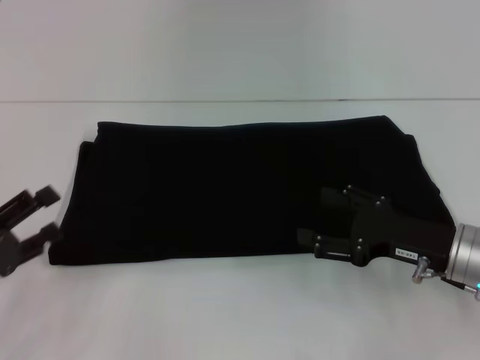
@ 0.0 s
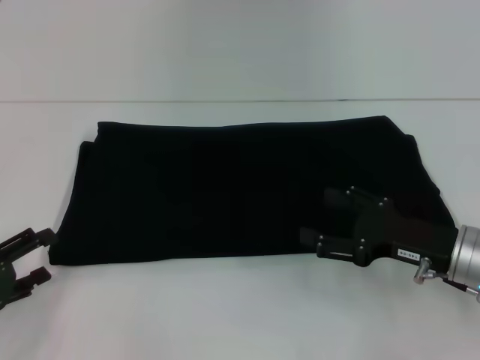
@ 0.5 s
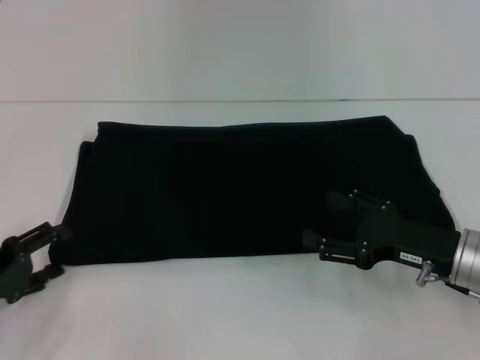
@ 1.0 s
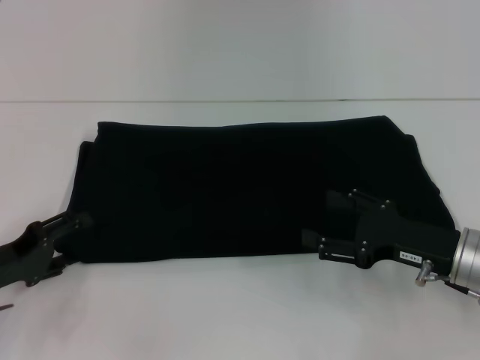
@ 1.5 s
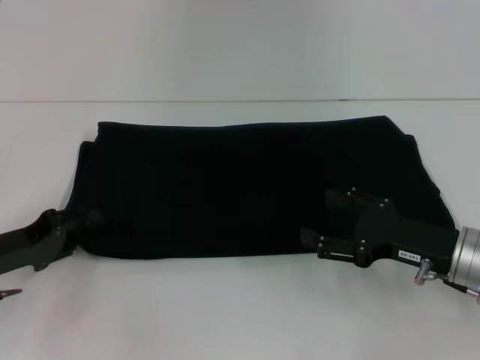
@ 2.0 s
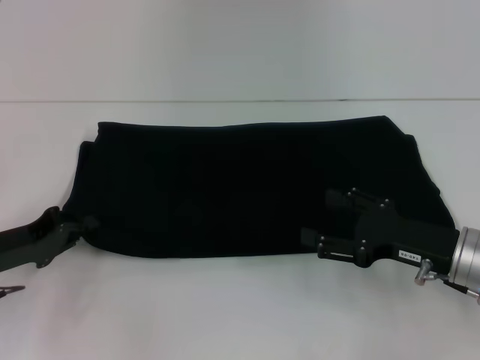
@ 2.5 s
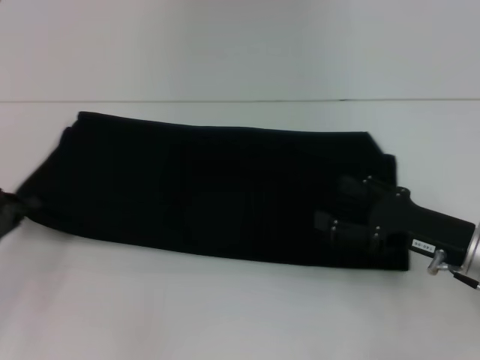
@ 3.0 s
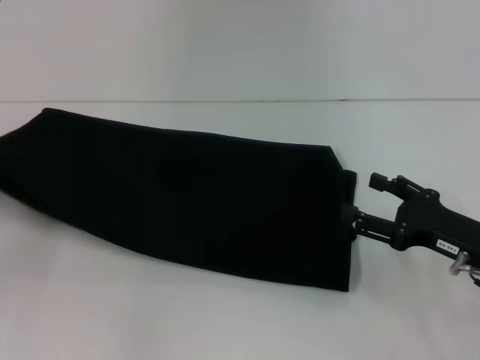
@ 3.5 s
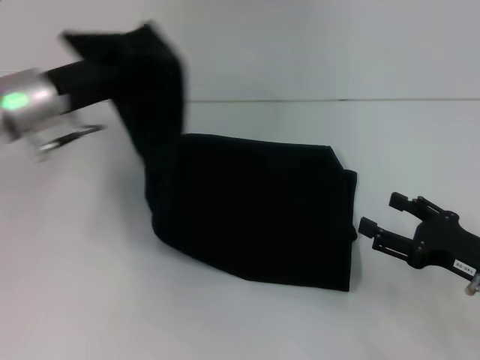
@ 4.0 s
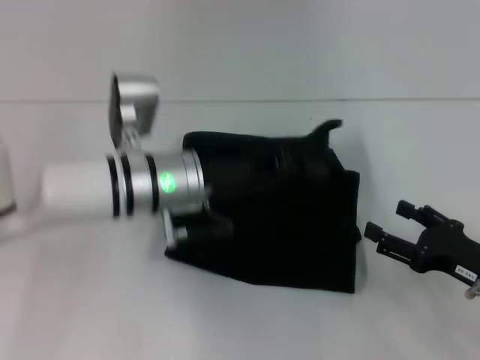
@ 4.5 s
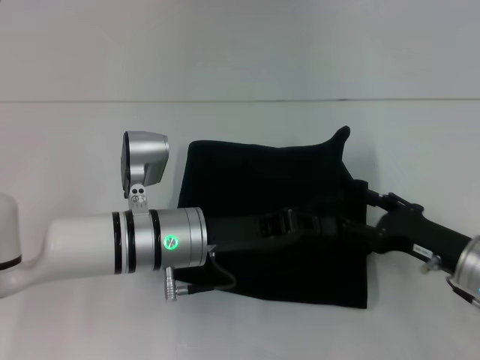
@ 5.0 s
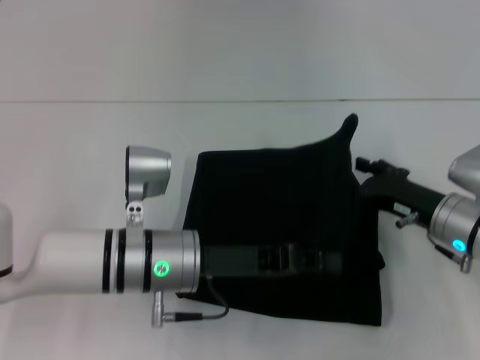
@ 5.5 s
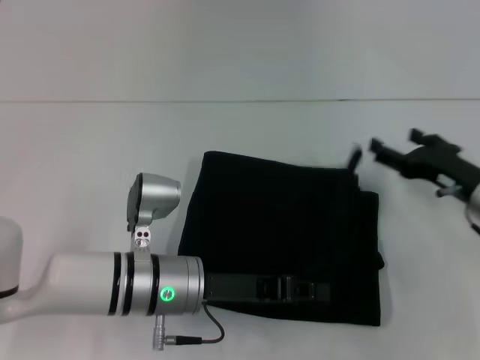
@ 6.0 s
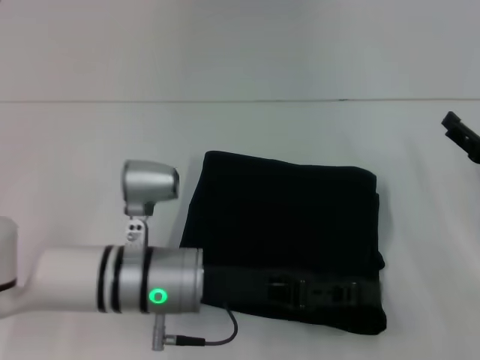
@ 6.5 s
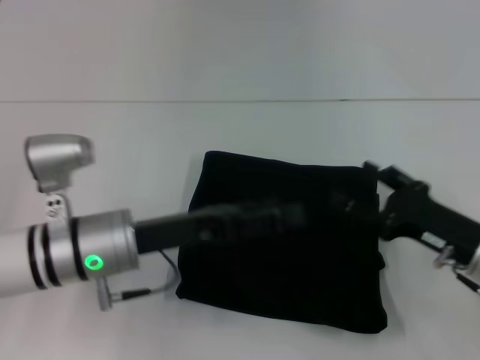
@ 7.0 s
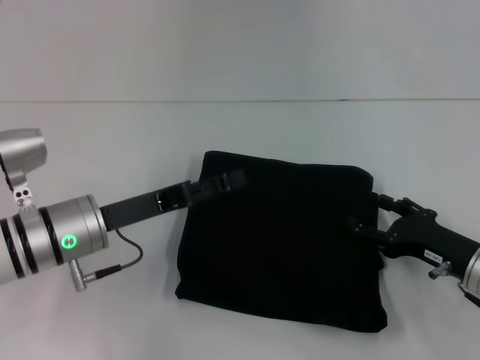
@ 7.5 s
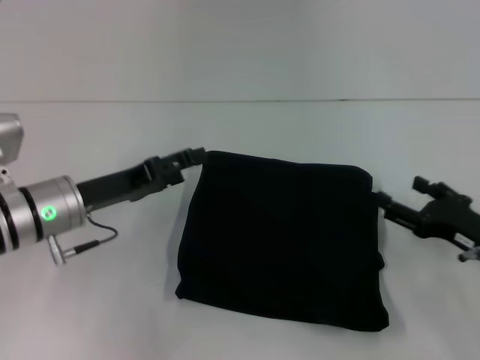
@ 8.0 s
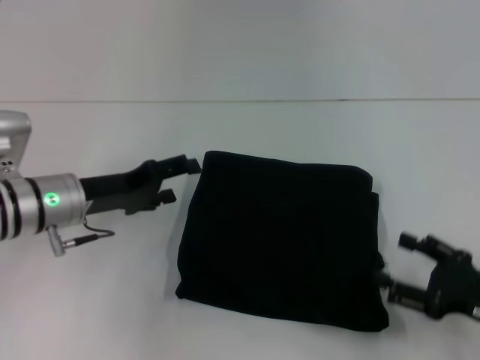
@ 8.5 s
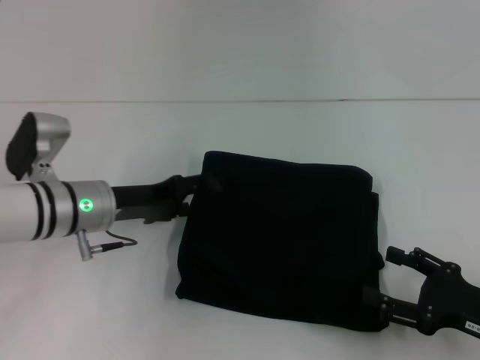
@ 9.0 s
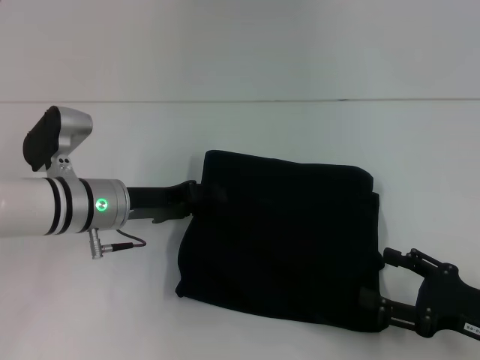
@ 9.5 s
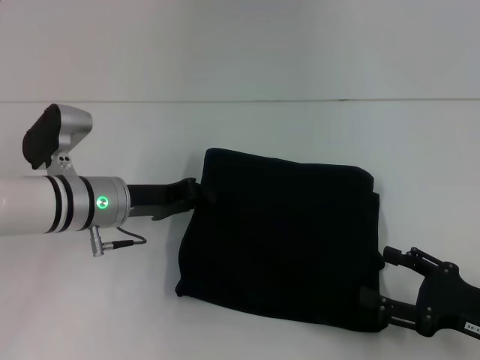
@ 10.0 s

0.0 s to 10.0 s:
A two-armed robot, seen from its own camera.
Step, 0.0 to 6.5 s: Fold the clothes with your left hand.
0.0 to 2.0 s: The left gripper heads forward, covering approximately 5 cm.
2.0 to 4.0 s: The right gripper ends up some 5 cm from where it was; the left gripper travels upward, forward and to the right by some 20 cm, and closes.
4.0 to 6.0 s: The left gripper heads to the right, downward and backward, covering roughly 20 cm; the right gripper goes approximately 10 cm forward.
6.0 to 8.0 s: The right gripper goes some 5 cm backward. Meanwhile the left gripper shifts approximately 10 cm to the left, and opens its fingers.
8.0 to 10.0 s: The left gripper shifts by approximately 5 cm, and closes up, while the right gripper goes roughly 5 cm backward.

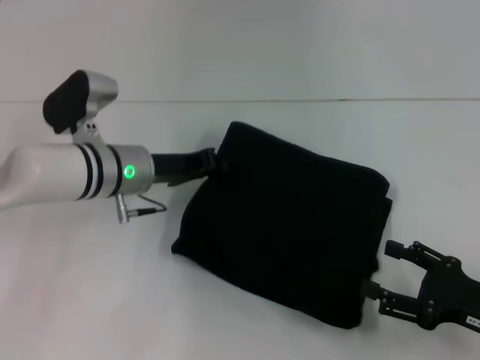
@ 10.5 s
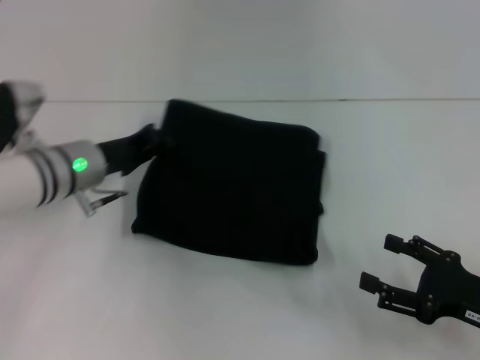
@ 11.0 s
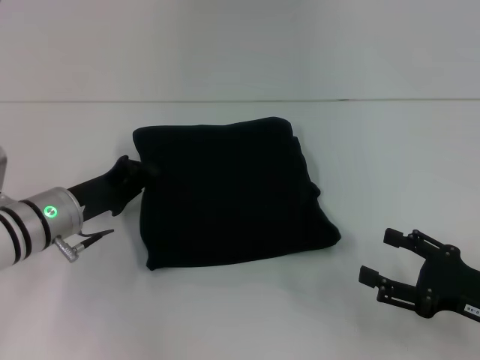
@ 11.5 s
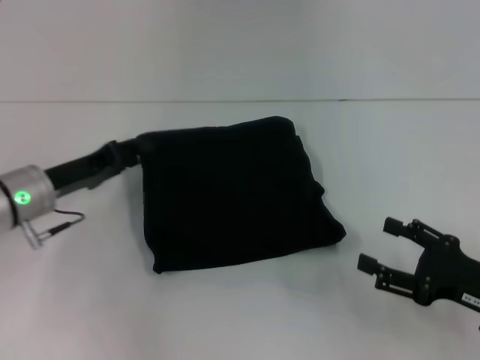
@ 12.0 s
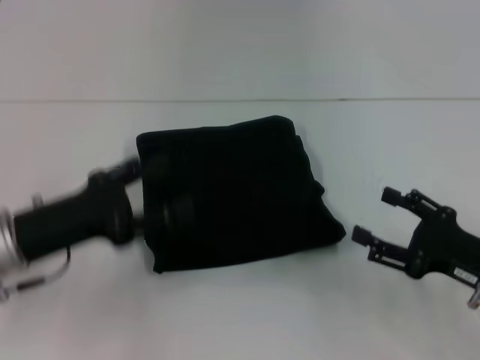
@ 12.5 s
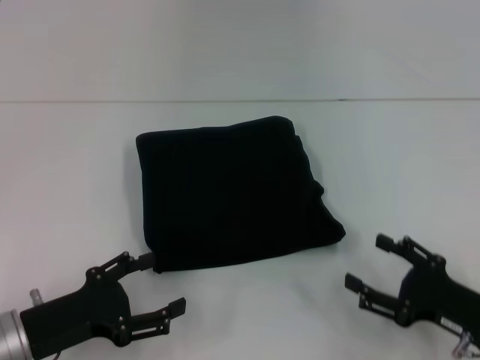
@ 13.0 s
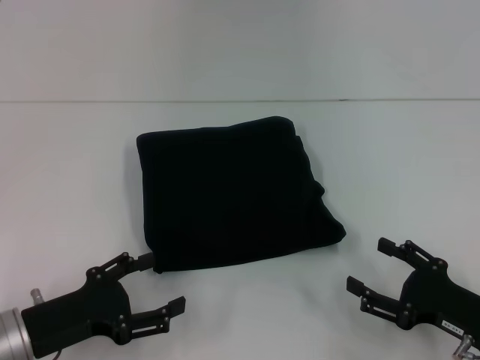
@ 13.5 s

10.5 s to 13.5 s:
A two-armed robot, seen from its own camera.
10.5 to 12.0 s: The left gripper shifts about 10 cm to the left.
12.0 to 13.5 s: The left gripper moves backward, about 15 cm, and opens.

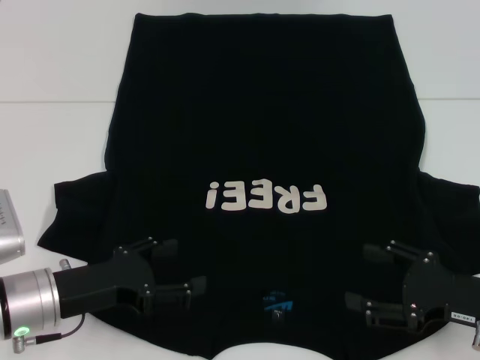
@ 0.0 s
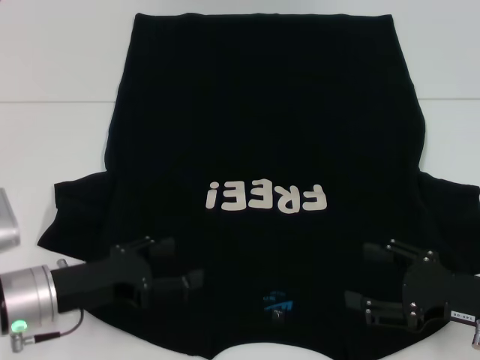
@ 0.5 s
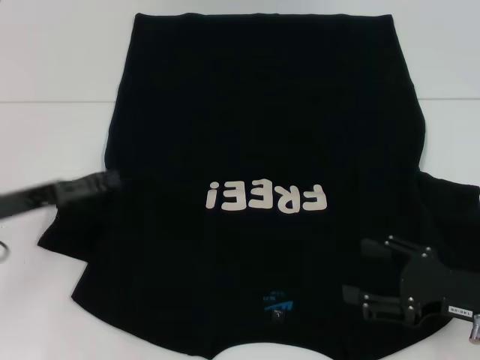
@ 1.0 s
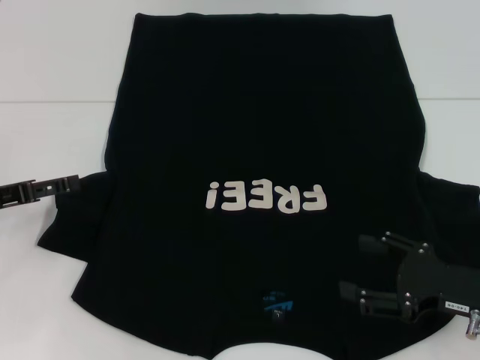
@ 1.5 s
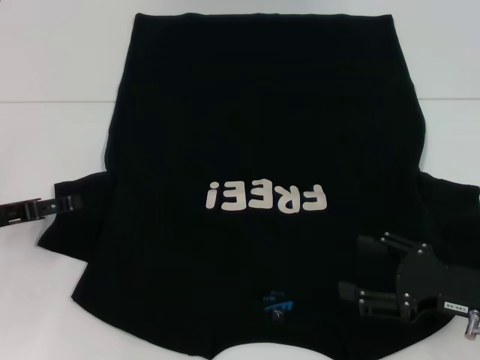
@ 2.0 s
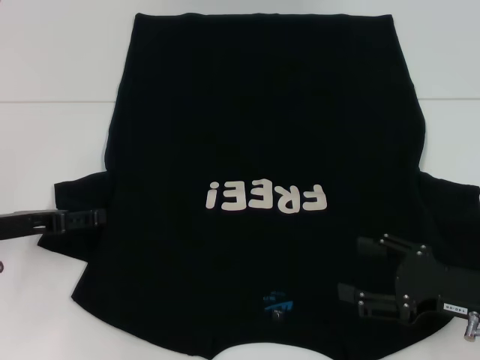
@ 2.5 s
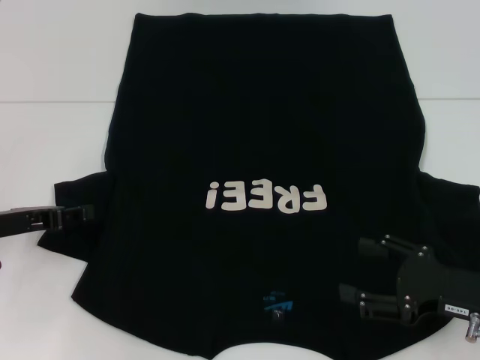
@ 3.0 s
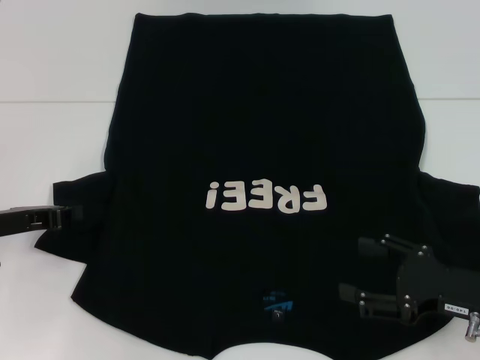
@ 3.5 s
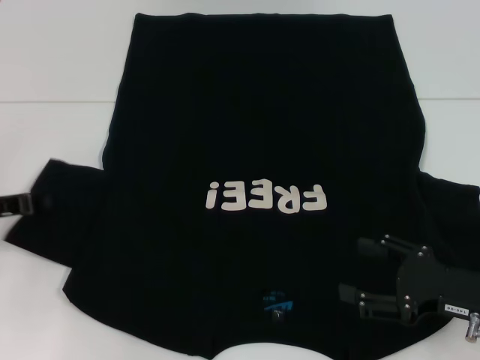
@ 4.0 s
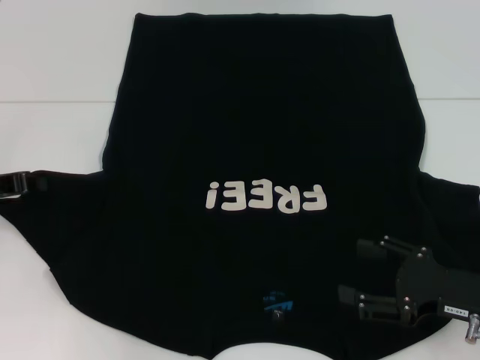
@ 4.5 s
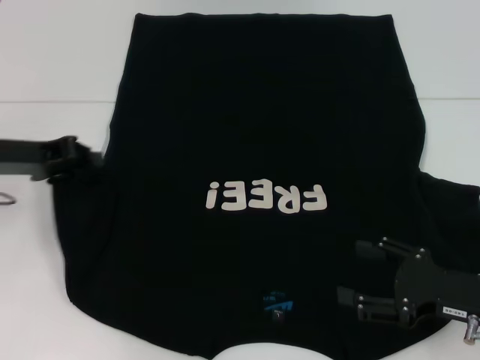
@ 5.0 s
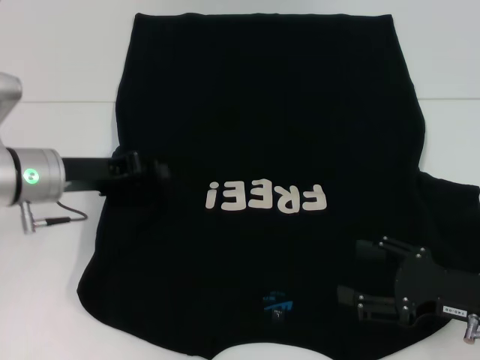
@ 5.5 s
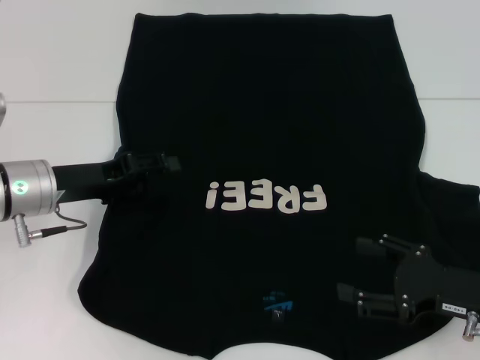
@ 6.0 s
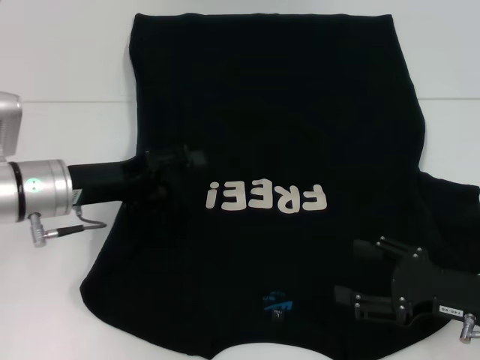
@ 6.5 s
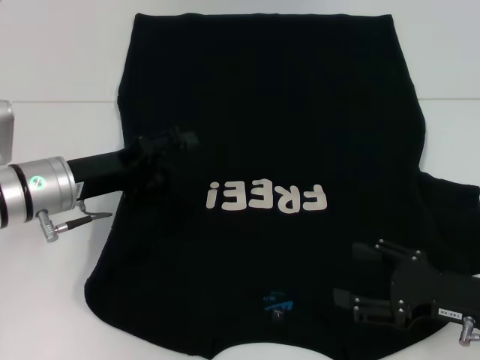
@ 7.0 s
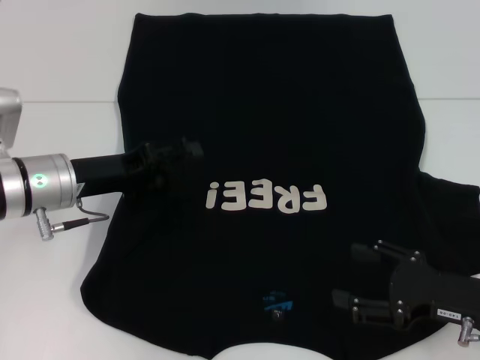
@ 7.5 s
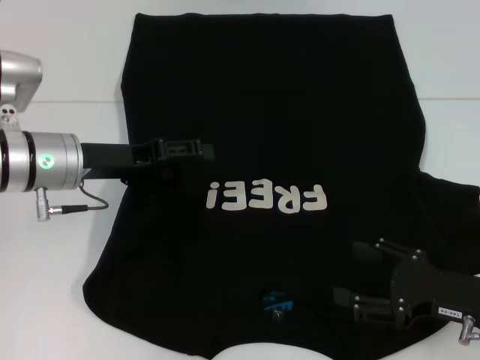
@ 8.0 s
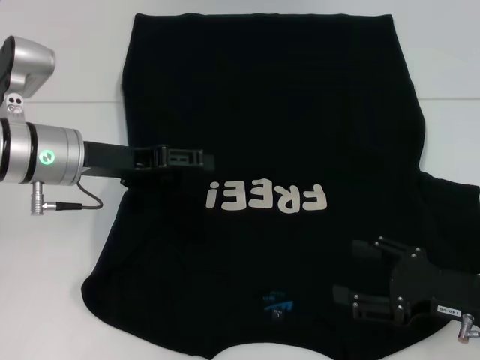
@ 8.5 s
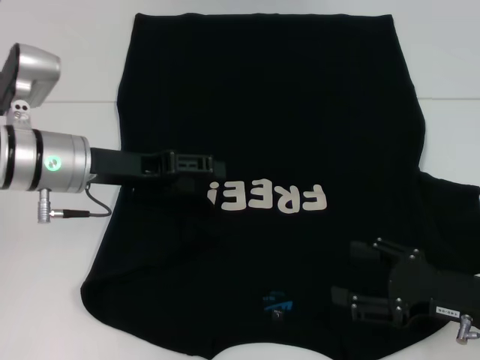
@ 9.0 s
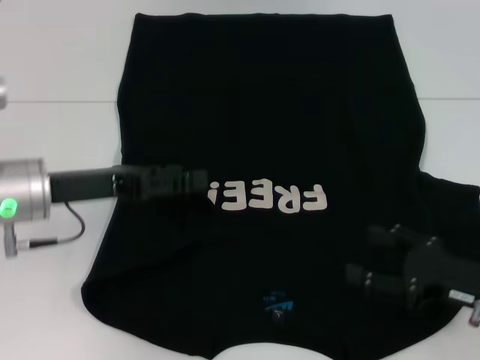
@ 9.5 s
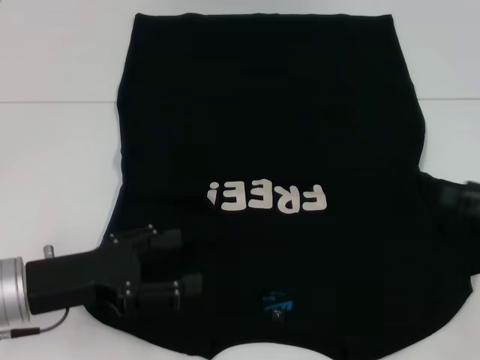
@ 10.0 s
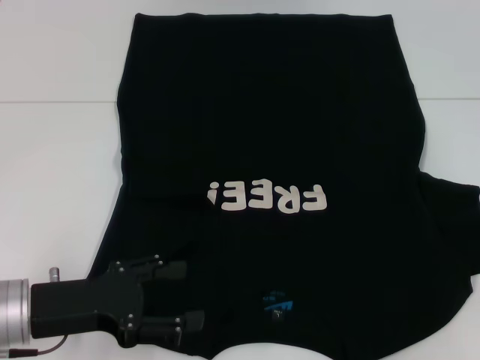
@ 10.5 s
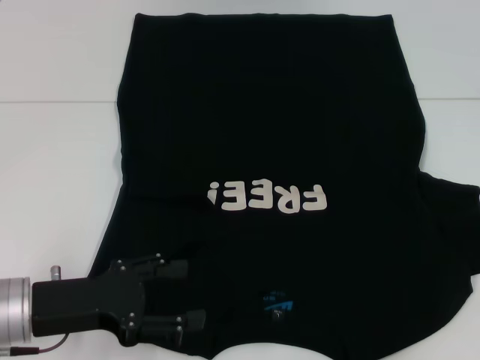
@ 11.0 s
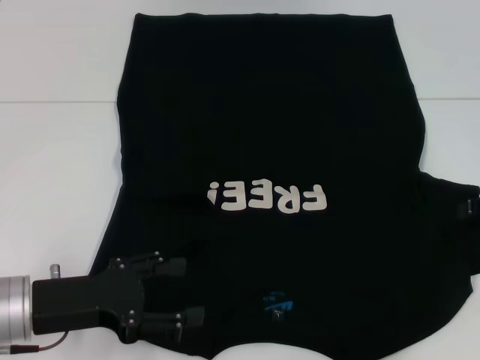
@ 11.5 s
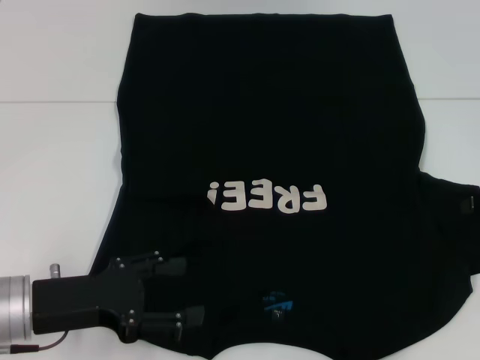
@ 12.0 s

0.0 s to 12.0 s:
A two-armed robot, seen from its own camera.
Step, 0.0 to 8.5 s: Fold the bottom left sleeve with your left hand.
0.0 to 2.0 s: The left gripper moves to the left and forward, roughly 10 cm.
2.0 to 4.0 s: The left gripper closes its fingers.
4.0 to 6.0 s: The left gripper travels to the right by about 10 cm, and opens.
6.0 to 8.0 s: The left gripper opens.
8.0 to 10.0 s: The left gripper heads backward, covering approximately 10 cm. The right gripper heads to the right and upward, covering about 10 cm.
